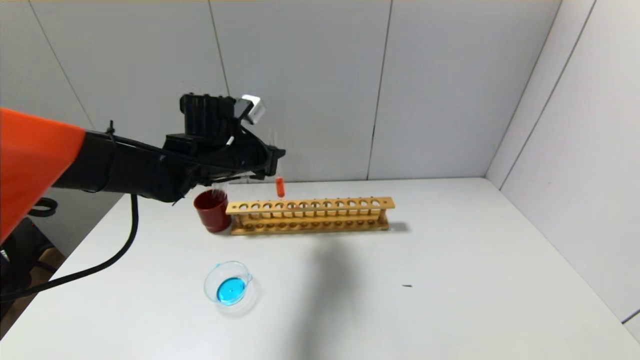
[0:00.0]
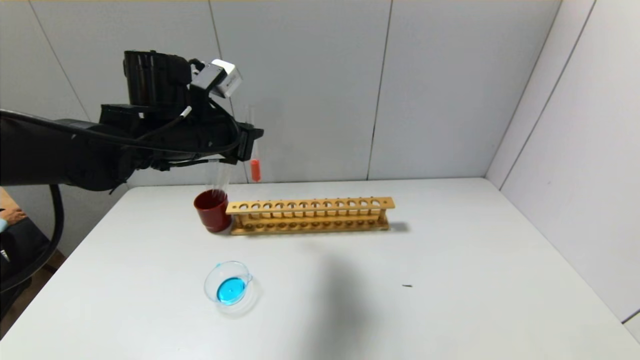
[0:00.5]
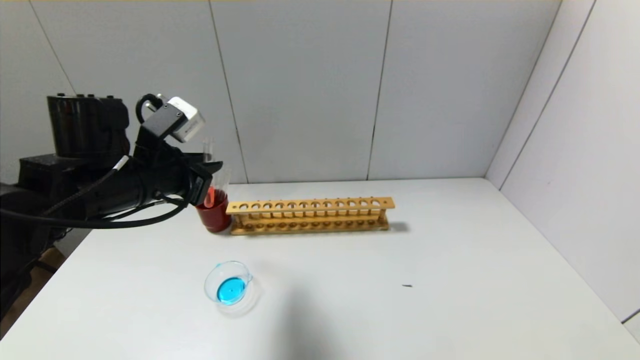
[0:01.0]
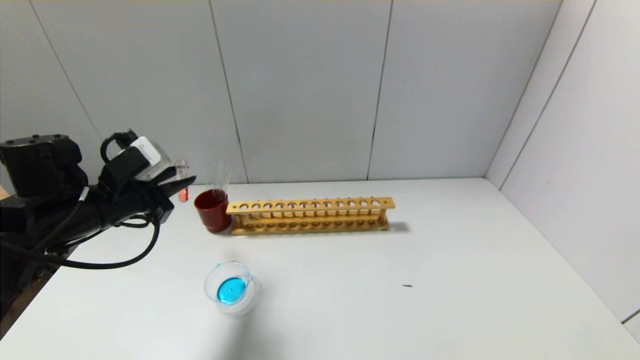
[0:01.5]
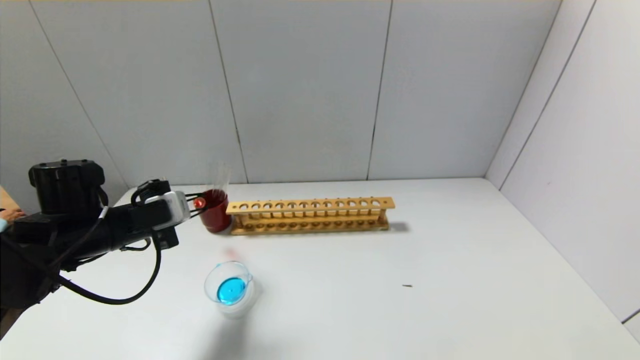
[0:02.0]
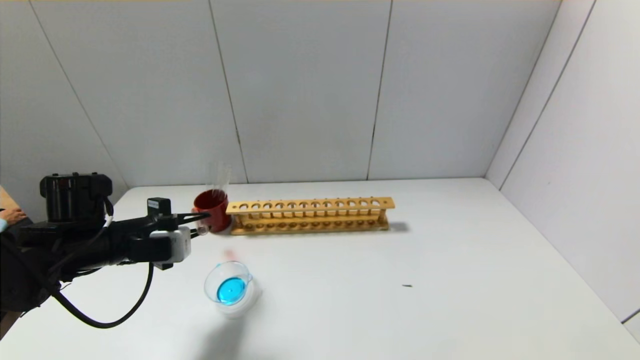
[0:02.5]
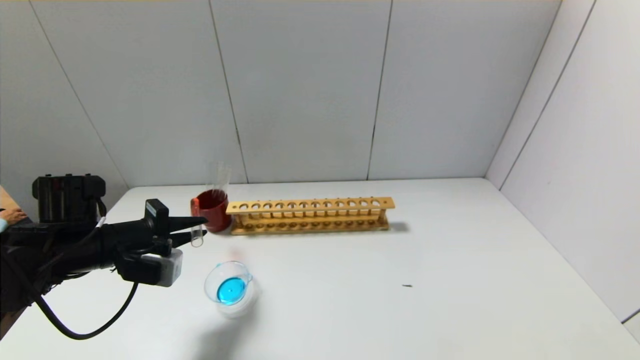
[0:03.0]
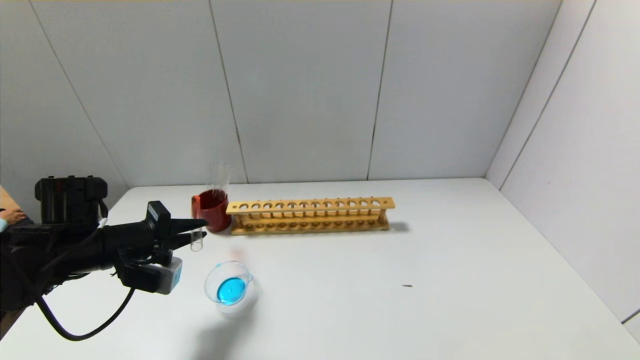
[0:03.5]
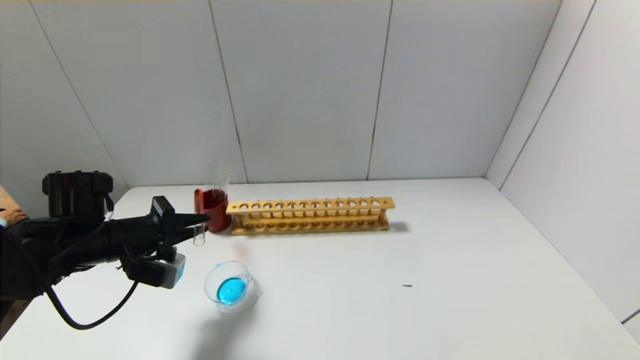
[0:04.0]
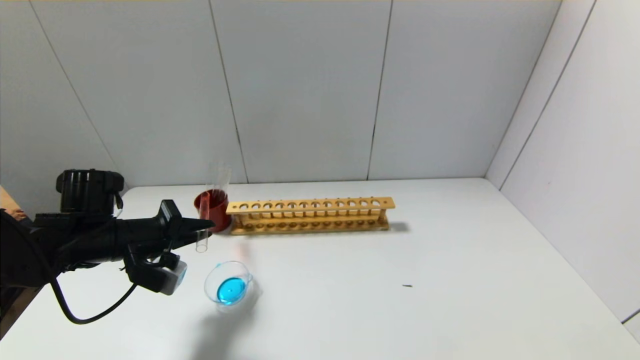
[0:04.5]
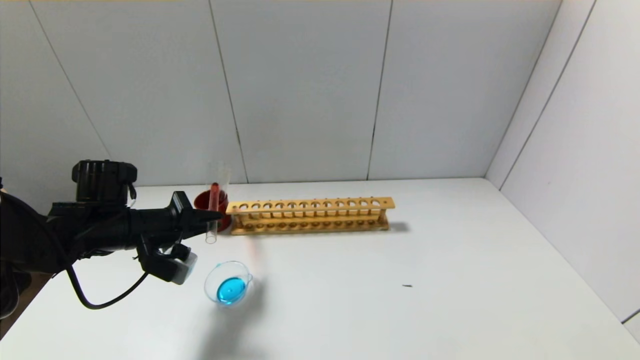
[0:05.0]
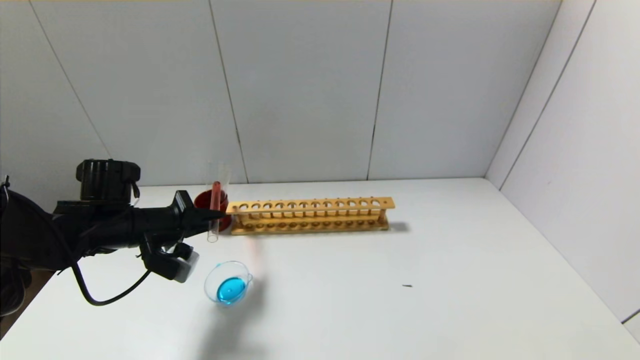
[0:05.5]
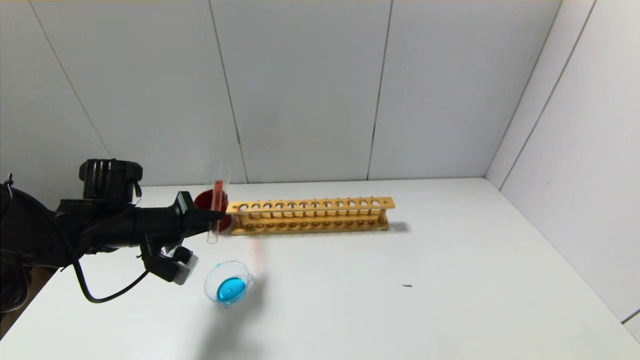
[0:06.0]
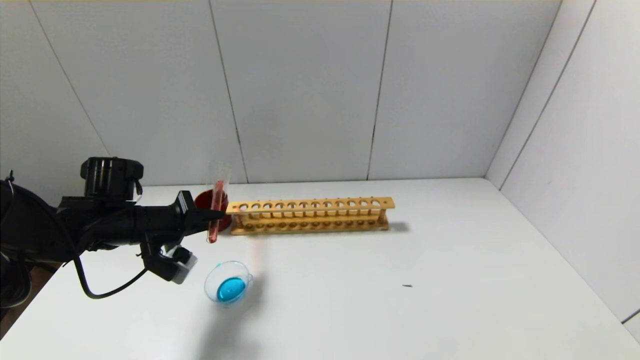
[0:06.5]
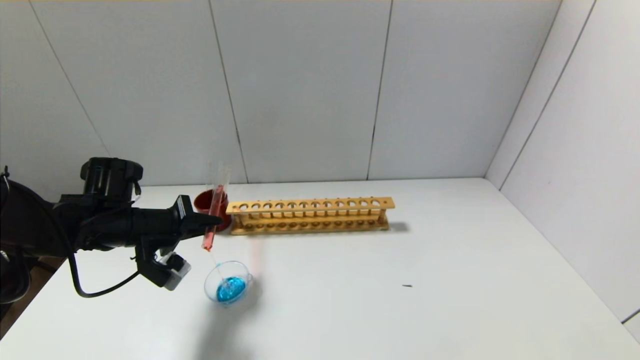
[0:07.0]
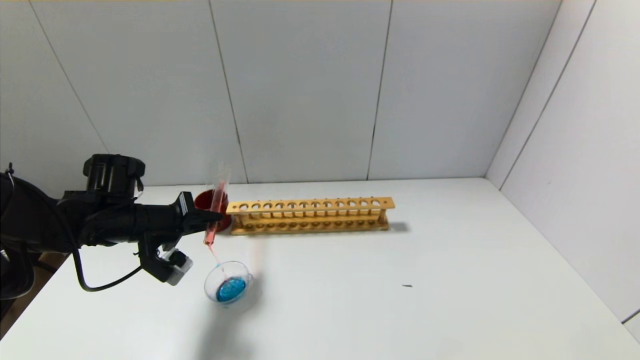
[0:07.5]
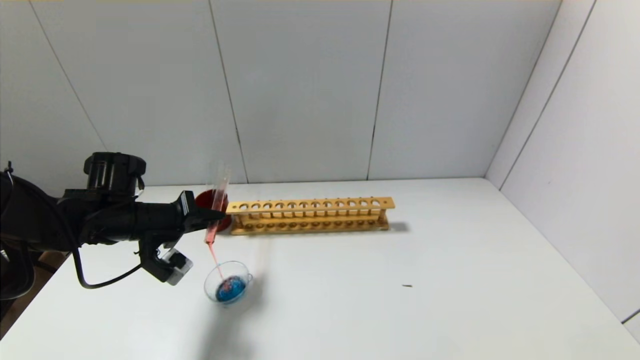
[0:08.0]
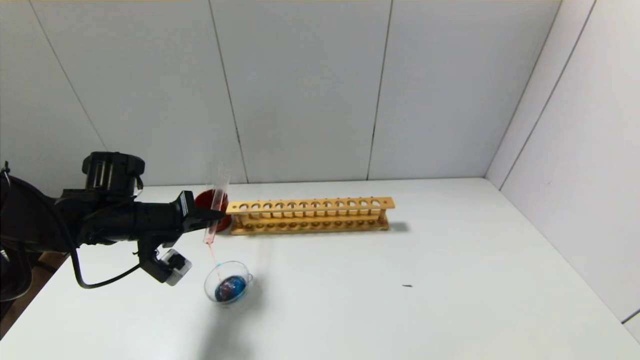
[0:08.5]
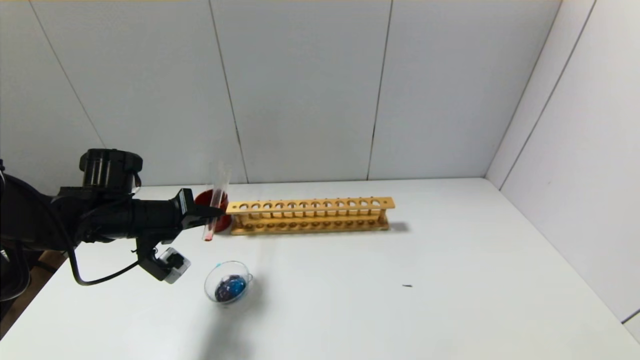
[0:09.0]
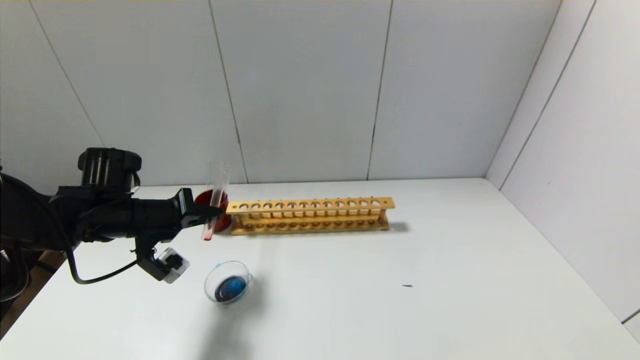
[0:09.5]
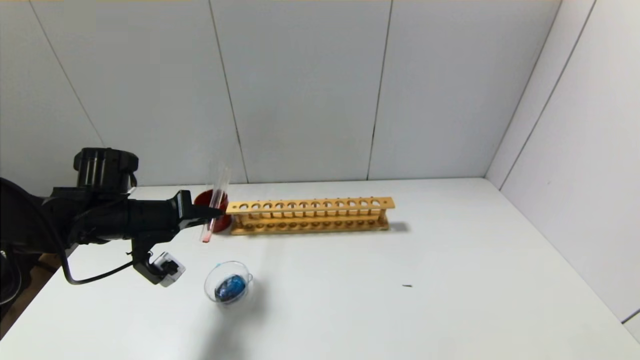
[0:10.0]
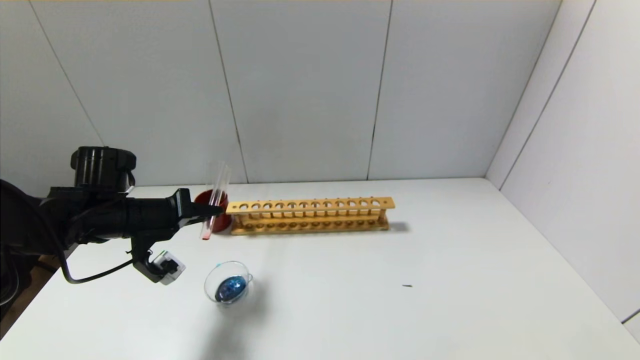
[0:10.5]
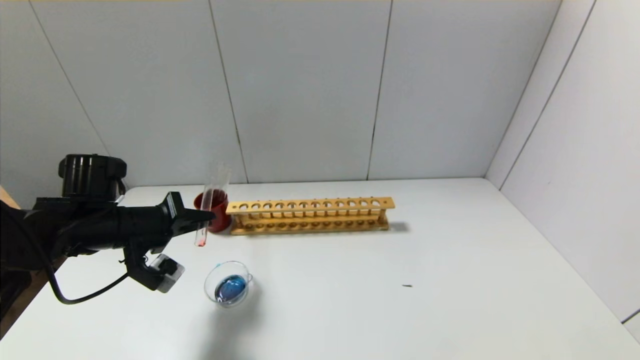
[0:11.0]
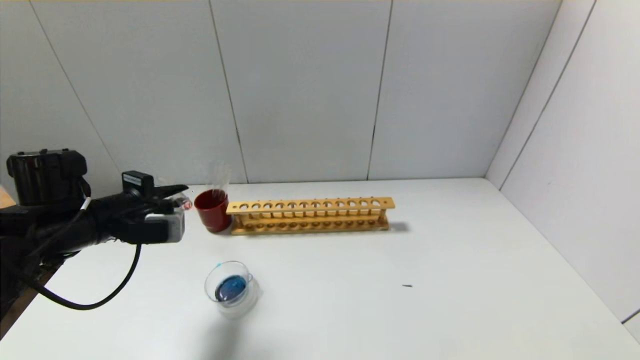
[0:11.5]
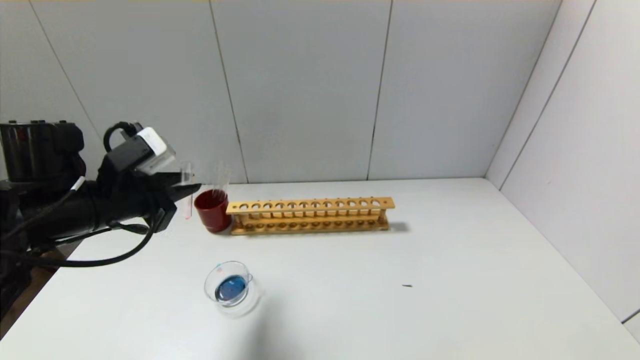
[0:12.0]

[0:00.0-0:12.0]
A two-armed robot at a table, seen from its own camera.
Step, 0:00.0 to 0:10.5: Pour the red reagent into the graduated cylinder with the left gripper.
0:00.0 to 0:02.0: The left gripper travels to the left, backward and downward by about 20 cm.
0:04.0 to 0:06.0: The grippers move only a little.
0:06.0 to 0:08.0: The grippers make only small movements.
0:08.0 to 0:10.0: The grippers make only small movements.
0:10.0 to 0:12.0: The left gripper heads upward and backward, covering approximately 10 cm.

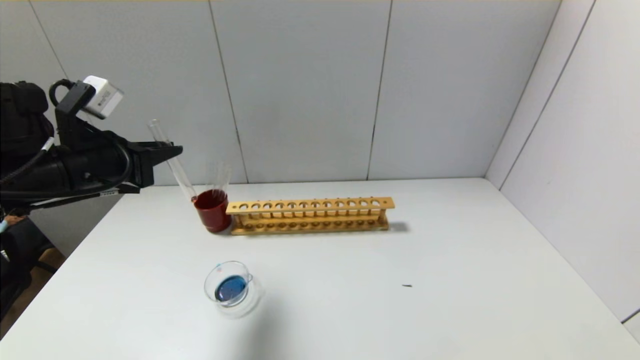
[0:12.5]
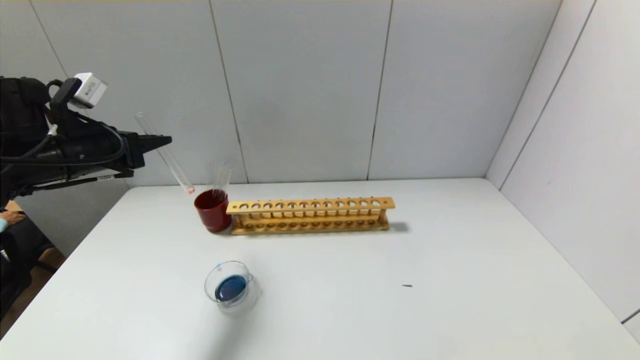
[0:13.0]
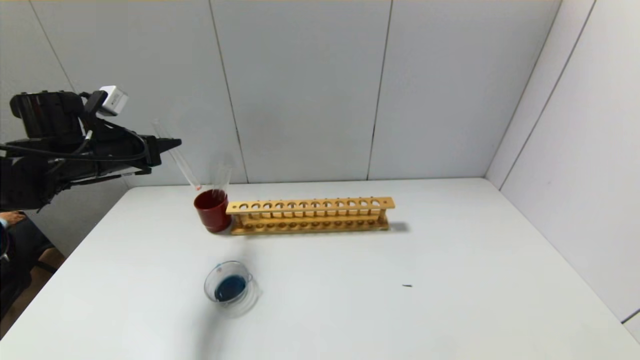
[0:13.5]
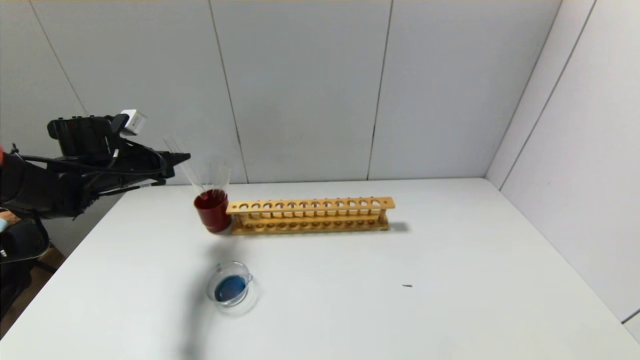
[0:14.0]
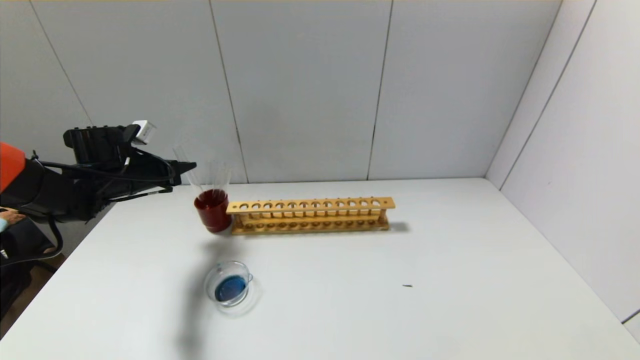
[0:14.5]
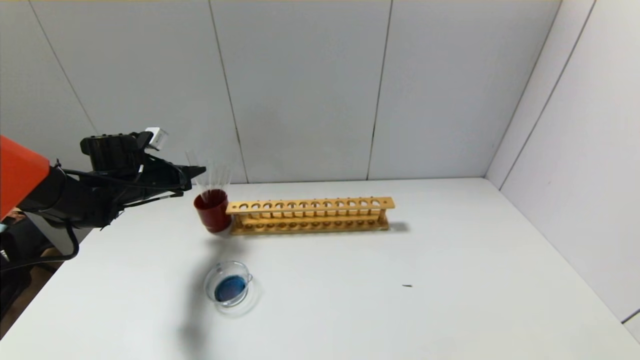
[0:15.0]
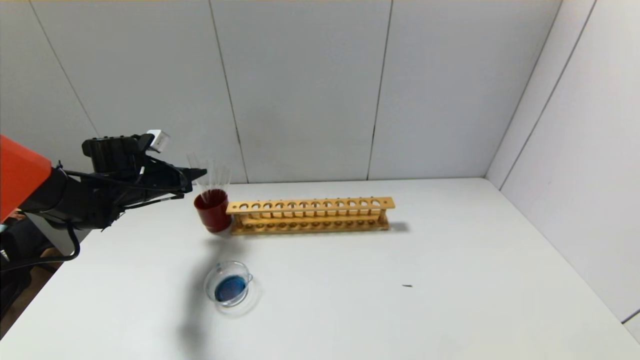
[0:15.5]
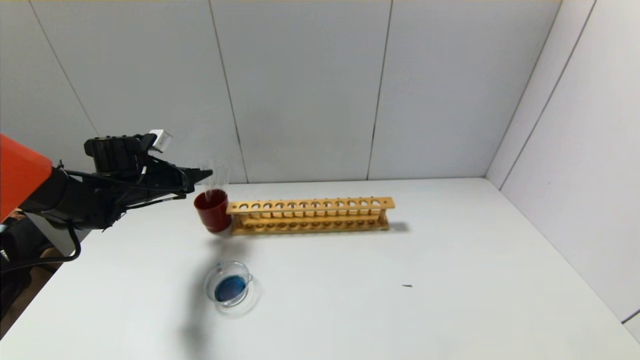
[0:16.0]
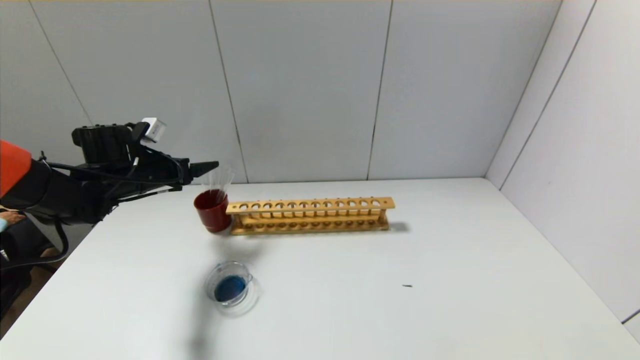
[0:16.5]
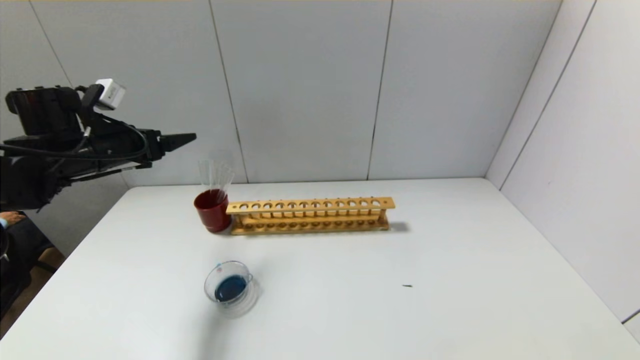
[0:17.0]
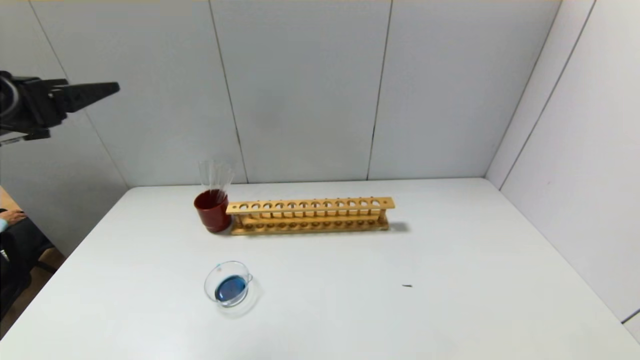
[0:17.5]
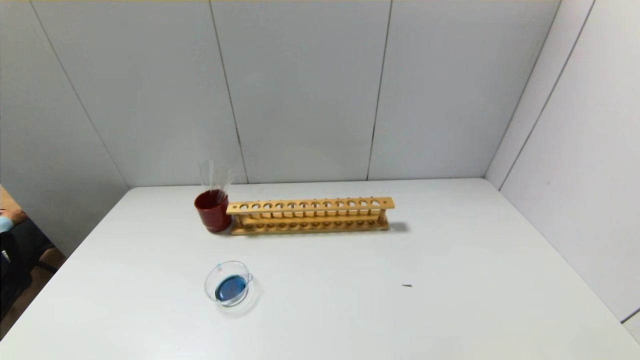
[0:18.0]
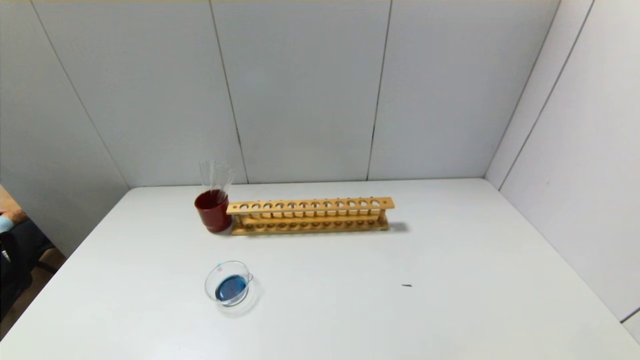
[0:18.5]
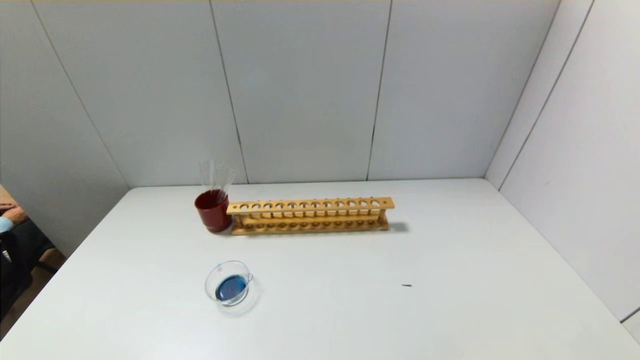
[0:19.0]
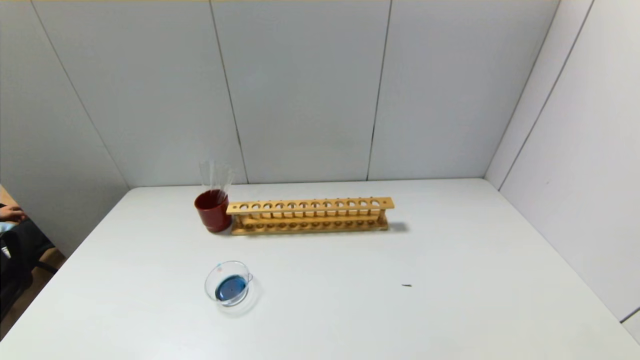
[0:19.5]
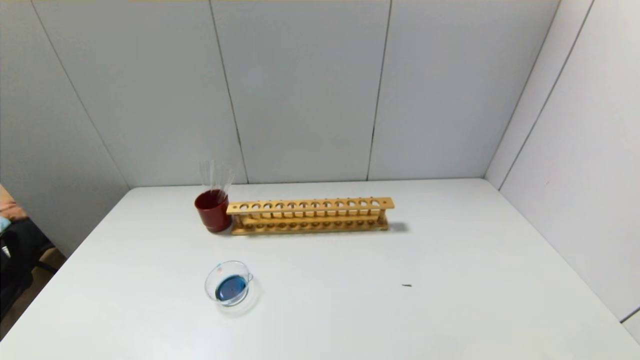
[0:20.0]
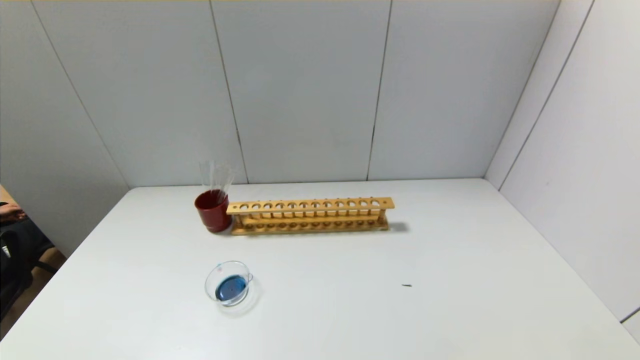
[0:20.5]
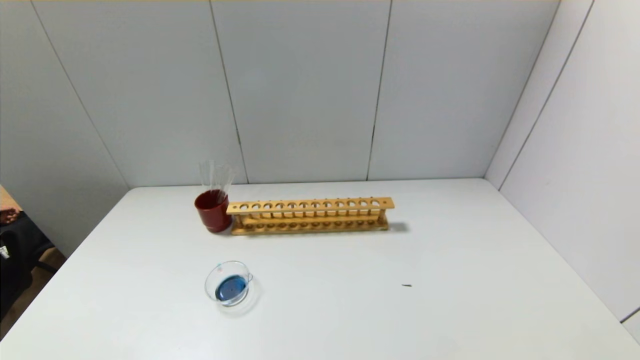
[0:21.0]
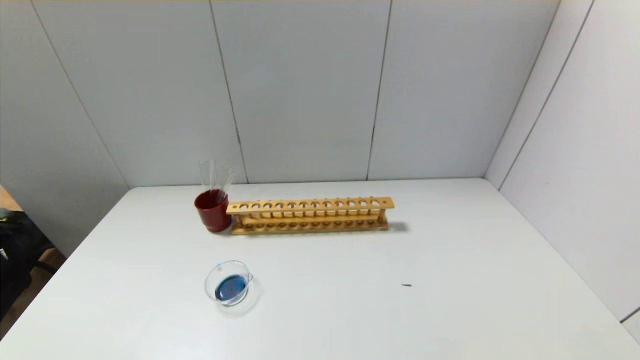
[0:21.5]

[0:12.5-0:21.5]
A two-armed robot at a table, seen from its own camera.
Step, 0:12.5 to 0:15.5: Place the test tube into the brown cup with the left gripper.
0:12.5 to 0:14.5: The left gripper travels forward and downward by about 15 cm.
0:14.5 to 0:17.0: The left gripper goes roughly 10 cm upward and backward, and opens up.
0:17.0 to 0:19.5: The left gripper travels backward by about 50 cm.
